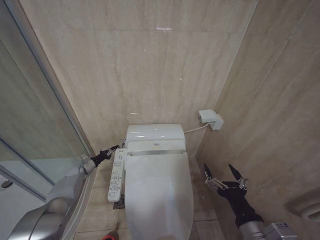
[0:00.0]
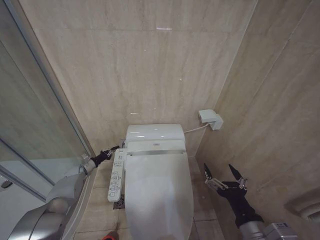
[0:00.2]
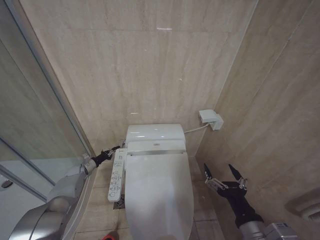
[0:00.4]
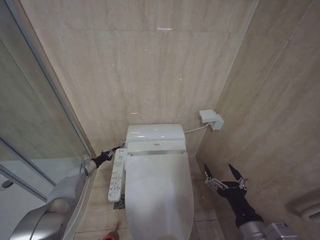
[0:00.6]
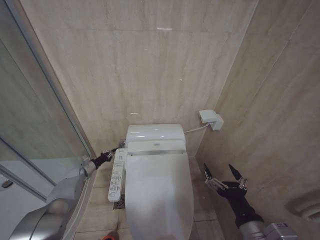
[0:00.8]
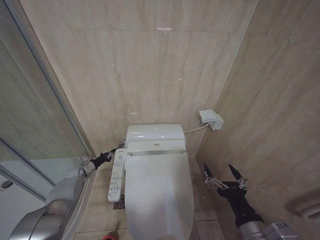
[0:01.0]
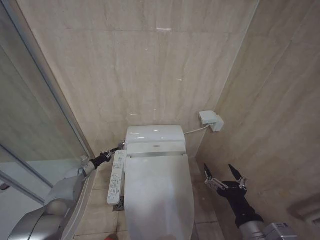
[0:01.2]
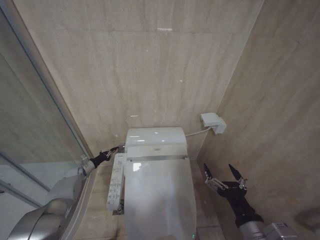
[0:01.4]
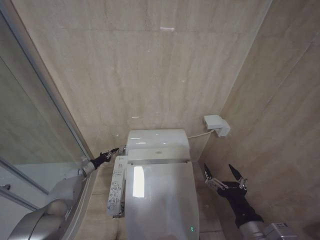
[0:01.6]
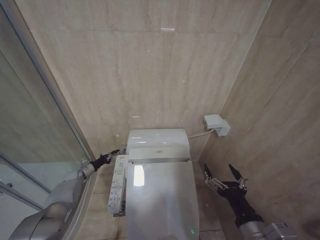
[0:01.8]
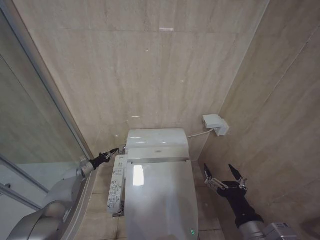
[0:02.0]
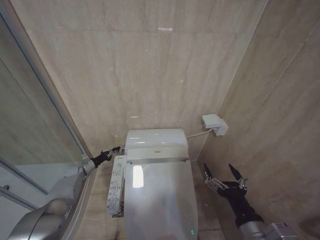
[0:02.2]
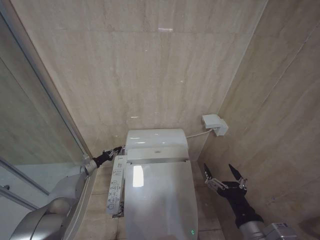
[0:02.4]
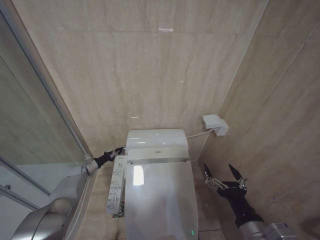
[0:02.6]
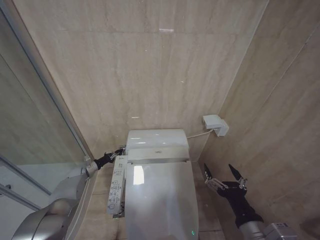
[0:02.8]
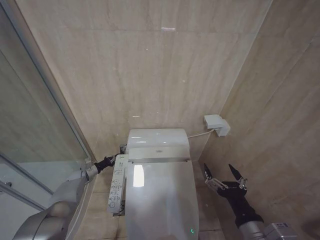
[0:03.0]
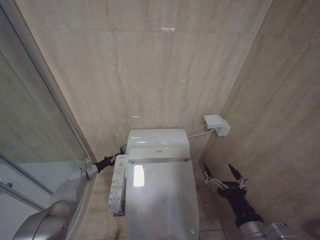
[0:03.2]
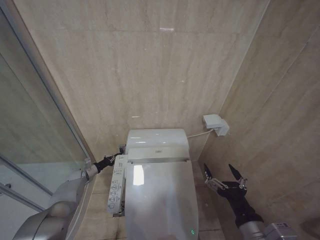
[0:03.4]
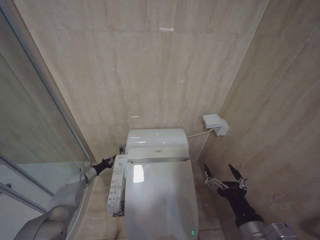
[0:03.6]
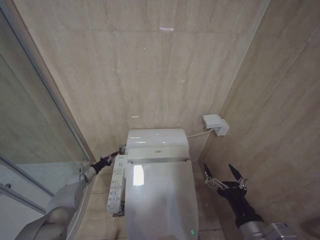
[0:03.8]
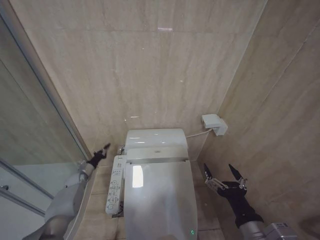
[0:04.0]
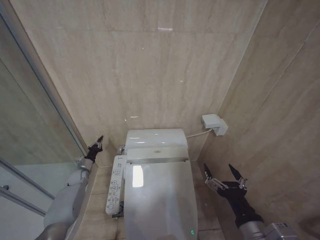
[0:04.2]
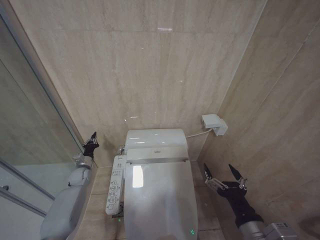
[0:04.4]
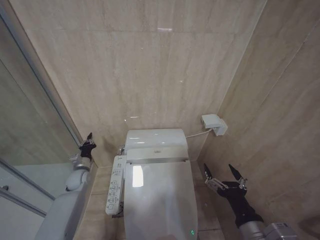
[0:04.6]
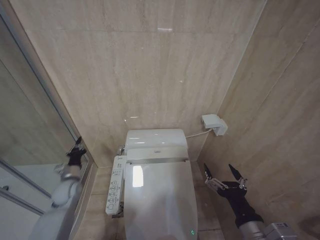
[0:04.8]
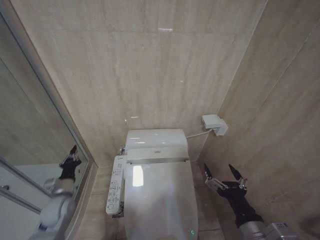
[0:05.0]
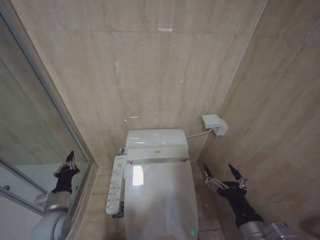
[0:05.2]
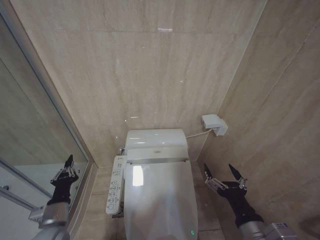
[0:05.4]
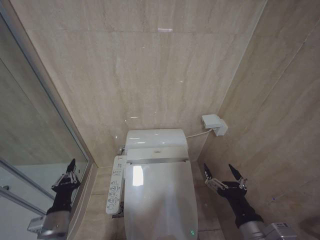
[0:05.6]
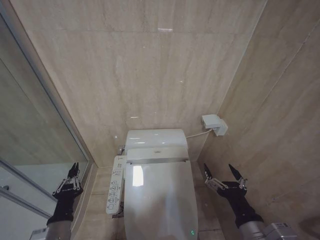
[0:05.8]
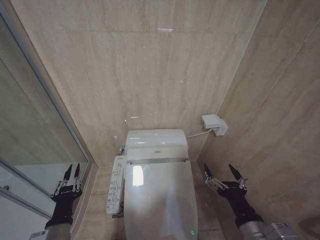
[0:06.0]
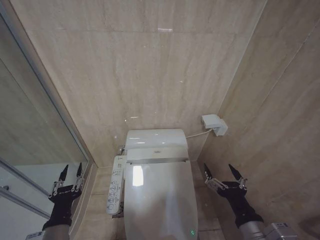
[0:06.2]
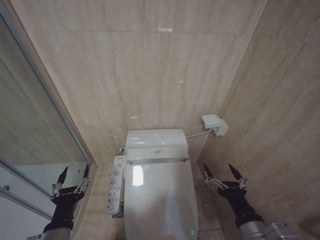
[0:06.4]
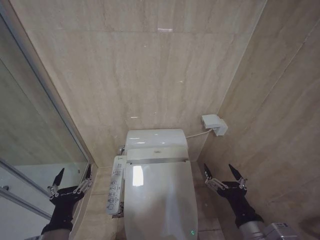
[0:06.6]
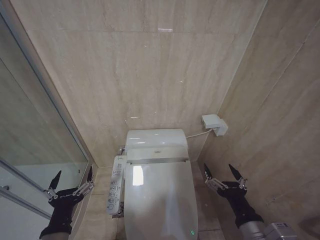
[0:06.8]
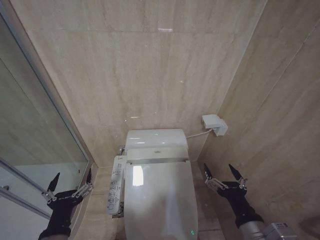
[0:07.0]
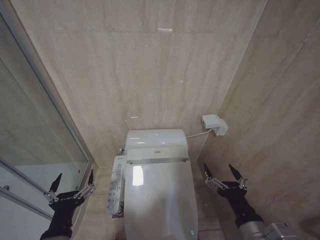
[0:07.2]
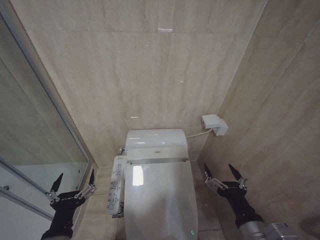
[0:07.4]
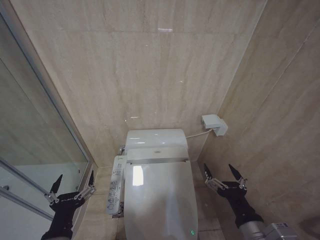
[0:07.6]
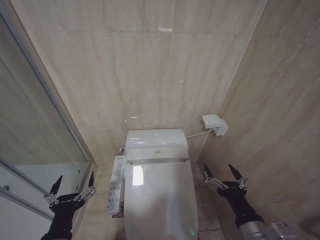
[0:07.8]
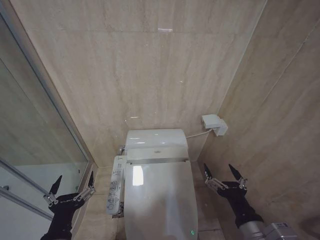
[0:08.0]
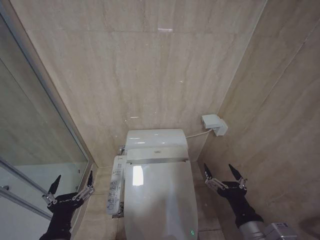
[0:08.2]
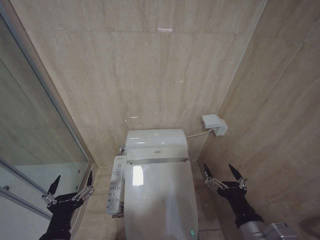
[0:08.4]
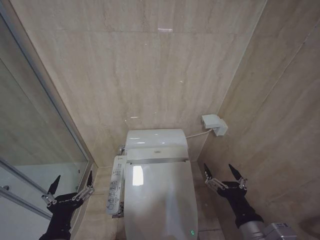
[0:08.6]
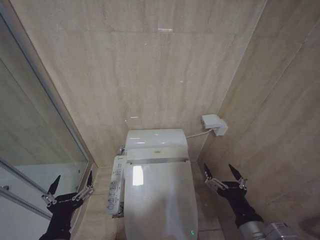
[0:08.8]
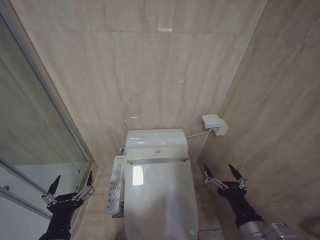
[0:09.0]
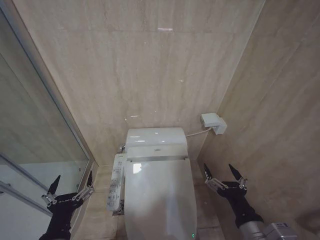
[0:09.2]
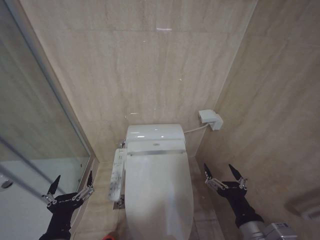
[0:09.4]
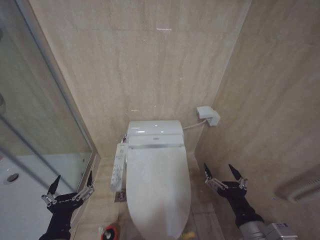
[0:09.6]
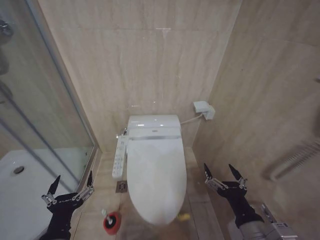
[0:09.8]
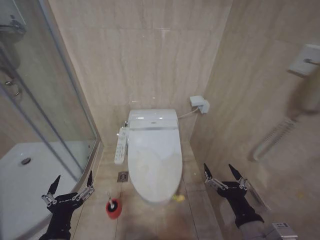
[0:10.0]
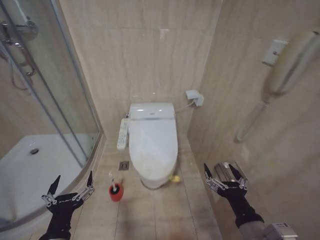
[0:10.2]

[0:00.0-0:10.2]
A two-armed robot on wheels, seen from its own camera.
Task of the whole recording: Open the toilet lid, clean the toilet bowl with a toilet brush, close the toilet lid, and flush.
0:00.0 to 0:01.4: Both grippers stay put.
0:01.4 to 0:03.0: The grippers move only a little.
0:03.0 to 0:04.4: The left gripper shifts about 5 cm upward.
0:04.4 to 0:05.8: The left gripper travels backward by some 30 cm.
0:05.8 to 0:07.2: The left gripper moves upward and backward, approximately 10 cm, and opens its fingers.
0:07.2 to 0:08.8: Both grippers stay put.

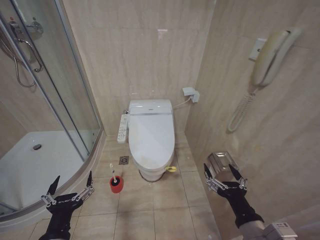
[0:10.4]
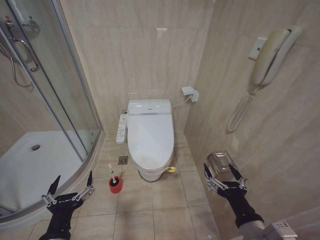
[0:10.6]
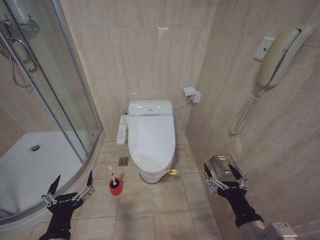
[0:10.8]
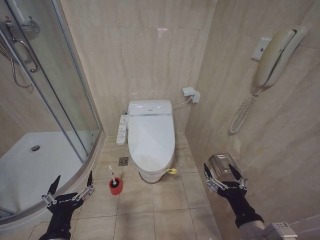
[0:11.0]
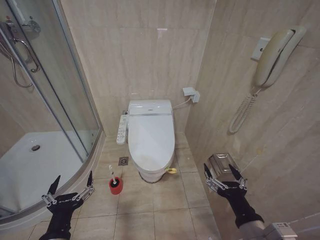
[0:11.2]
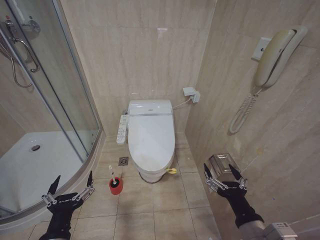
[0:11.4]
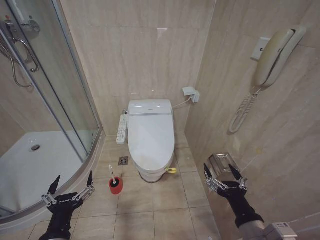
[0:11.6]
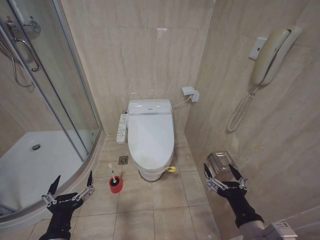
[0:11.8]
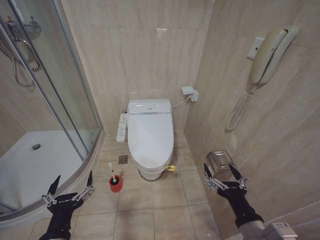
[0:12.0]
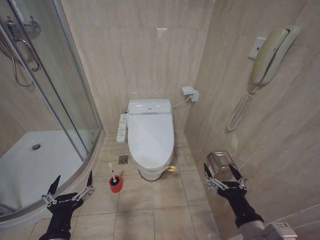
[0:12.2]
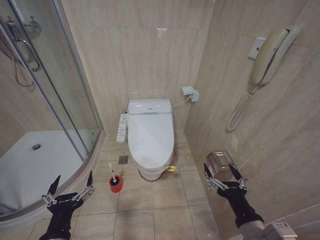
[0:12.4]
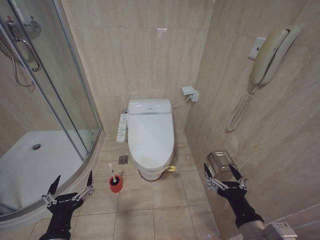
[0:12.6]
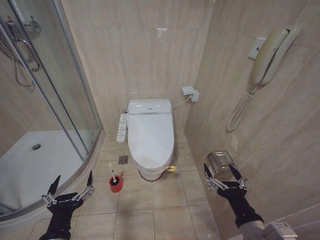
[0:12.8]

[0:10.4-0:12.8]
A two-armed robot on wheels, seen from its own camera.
Task of the whole recording: Open the toilet lid, clean the toilet bowl with a toilet brush, close the toilet lid, and flush.
0:10.4 to 0:12.8: Both grippers stay put.
